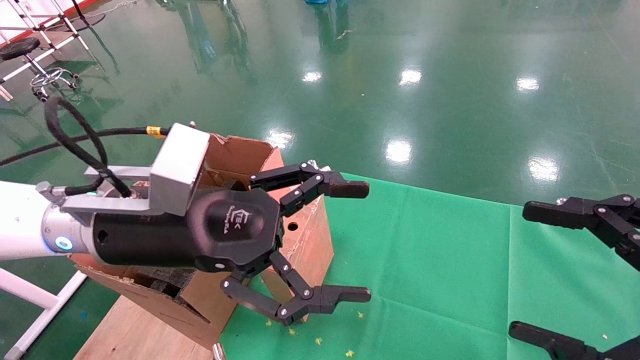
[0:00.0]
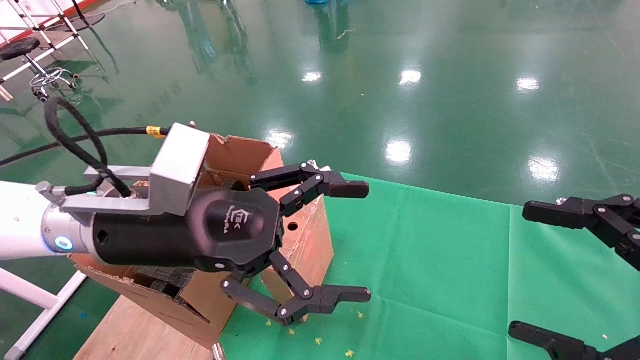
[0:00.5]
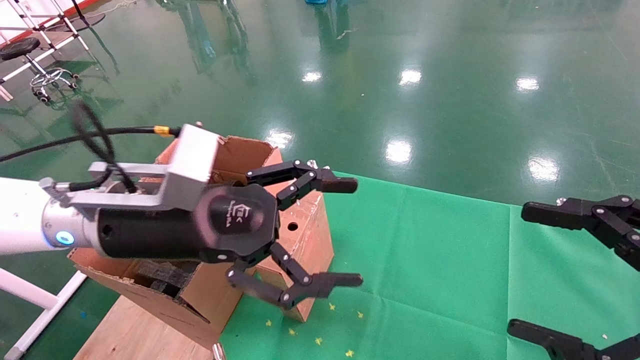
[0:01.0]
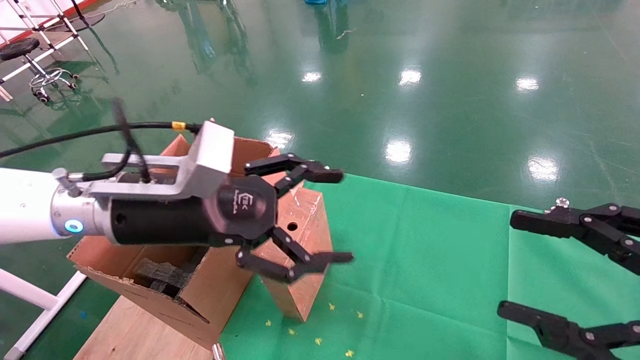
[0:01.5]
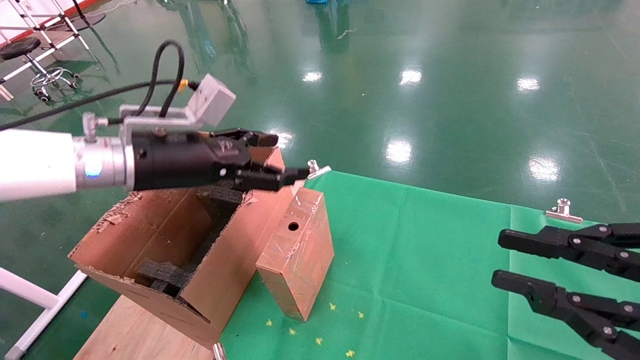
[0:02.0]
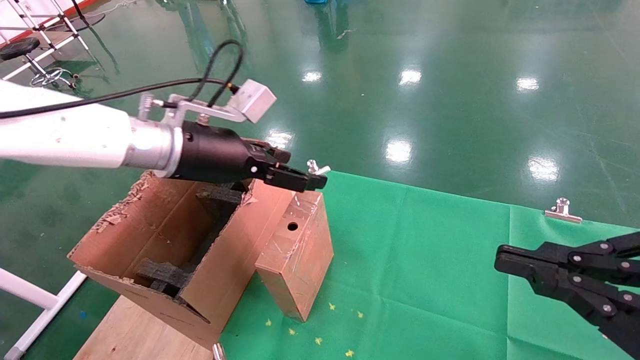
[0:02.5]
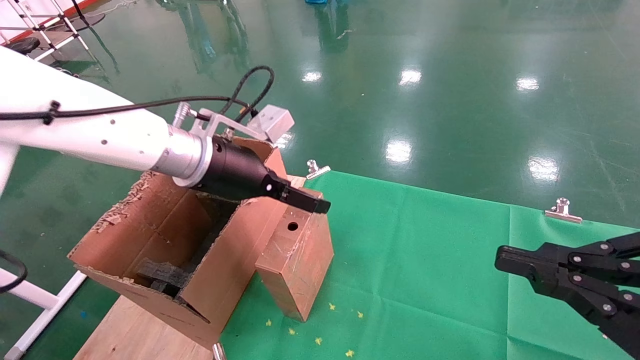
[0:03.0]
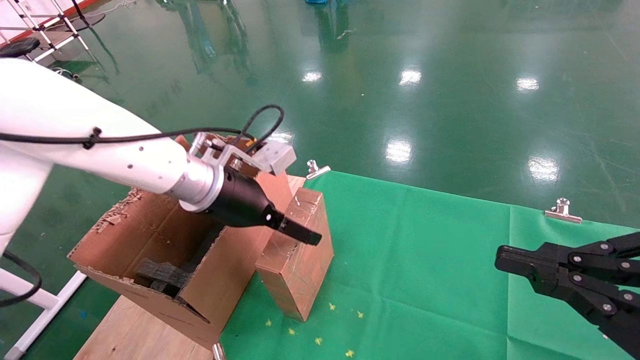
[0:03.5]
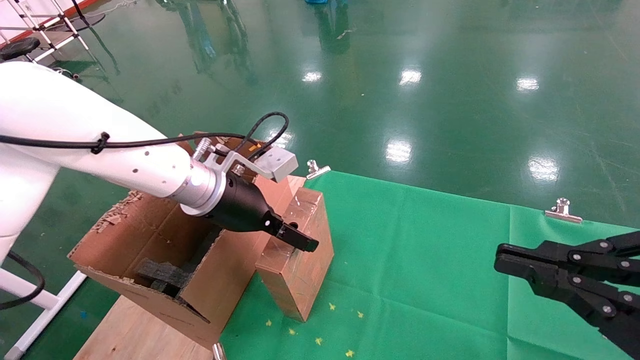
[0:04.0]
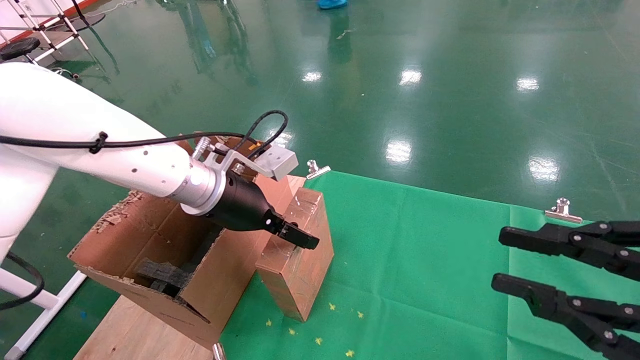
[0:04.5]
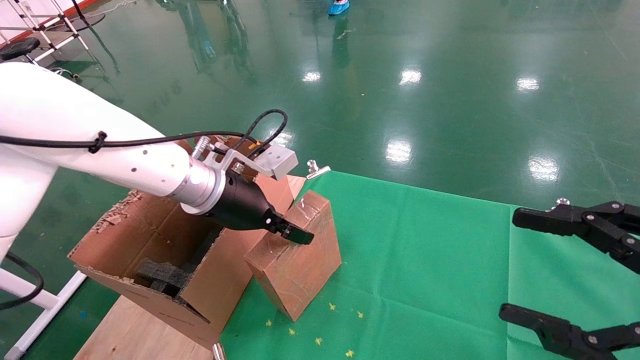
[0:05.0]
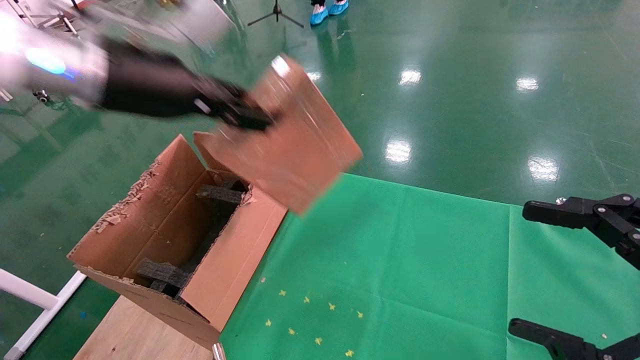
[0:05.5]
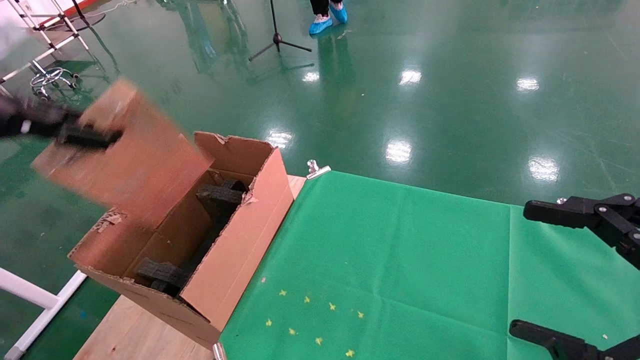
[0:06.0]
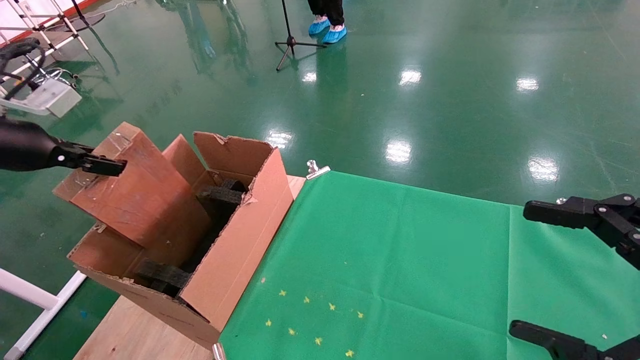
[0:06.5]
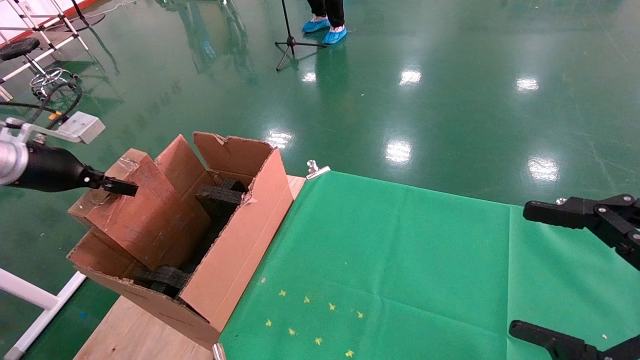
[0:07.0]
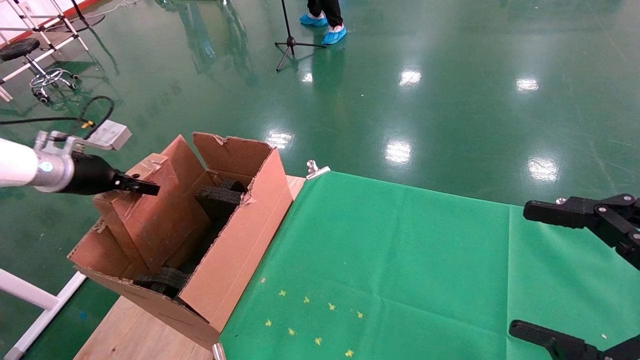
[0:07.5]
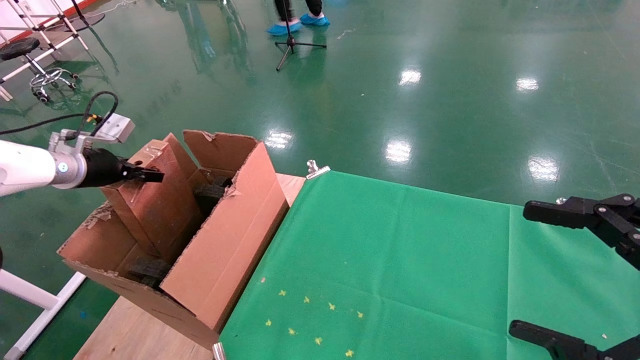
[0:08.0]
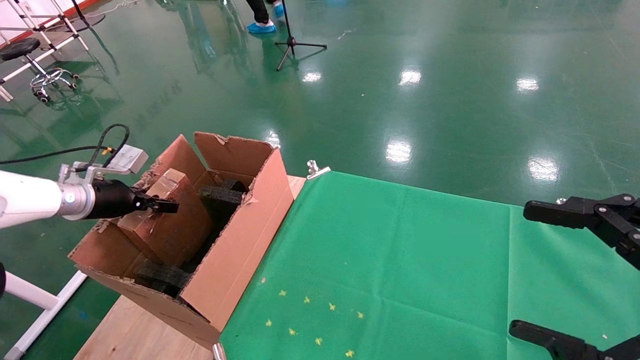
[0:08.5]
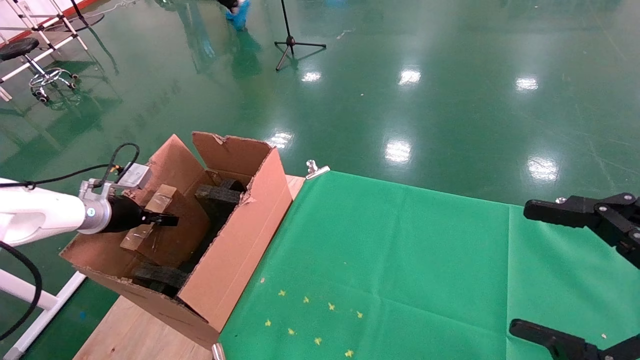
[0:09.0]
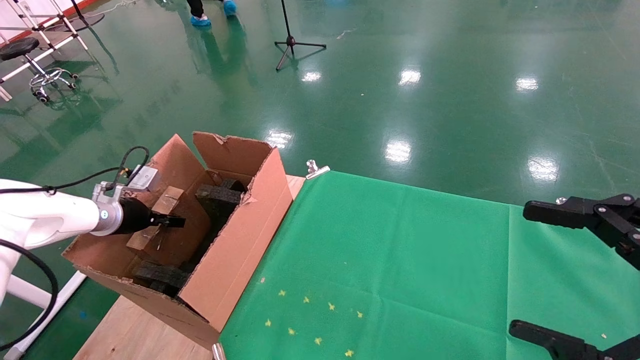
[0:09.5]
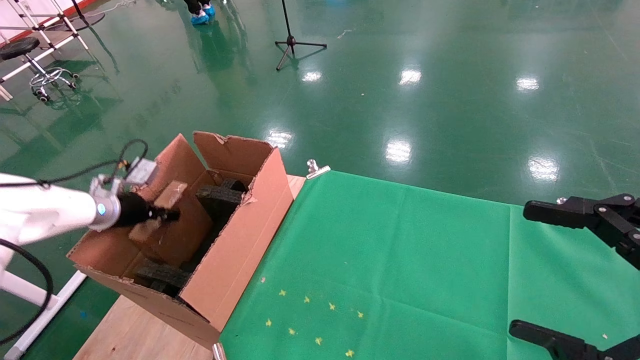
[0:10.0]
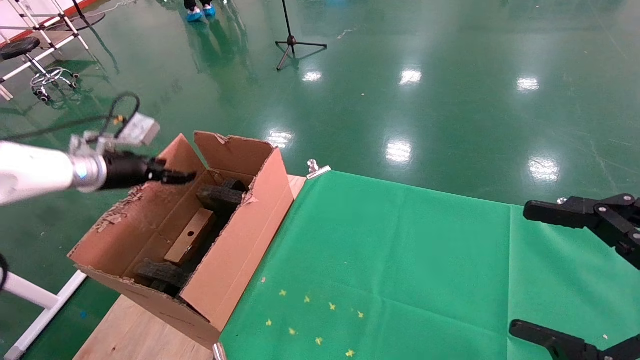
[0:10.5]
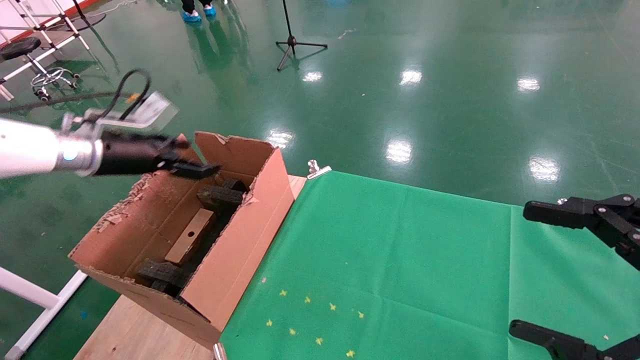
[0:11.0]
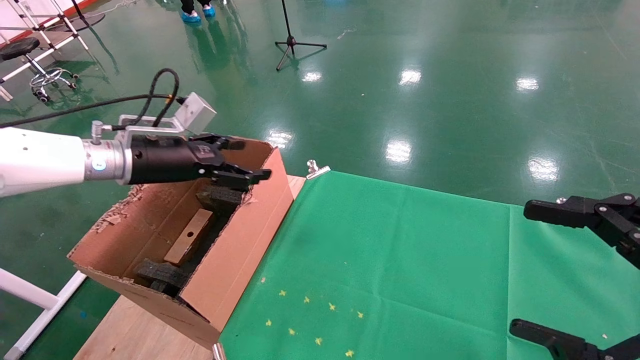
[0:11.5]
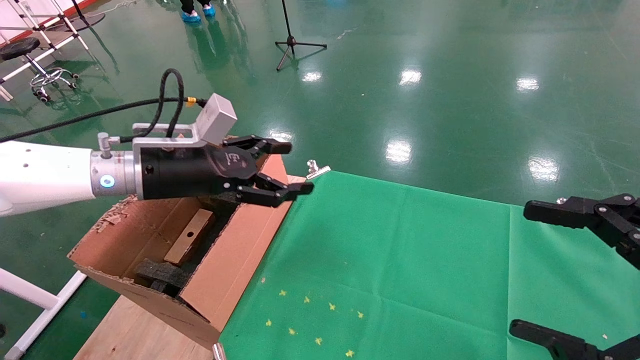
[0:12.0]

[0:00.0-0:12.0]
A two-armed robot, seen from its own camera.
Task of the whole recording: using a robotic arm to pick up a cardboard box and palace it the carton.
Step, 0:01.5 to 0:05.0: Pick up the mouse and the power cord paper box.
Step, 0:05.5 to 0:10.5: Place the mouse and the power cord paper box into the container.
0:00.0 to 0:02.0: The left gripper is displaced forward and to the left by some 10 cm; the right gripper closes its fingers.
0:02.0 to 0:04.0: The left gripper is displaced to the right by about 5 cm.
0:04.0 to 0:06.0: The left gripper shifts some 30 cm to the left, upward and backward, and closes up. The right gripper opens.
0:06.0 to 0:08.0: The left gripper moves forward, downward and to the left, about 25 cm.
0:08.0 to 0:10.0: The left gripper moves downward, approximately 10 cm.
0:10.0 to 0:12.0: The left gripper moves to the right and upward, some 25 cm, and opens up.

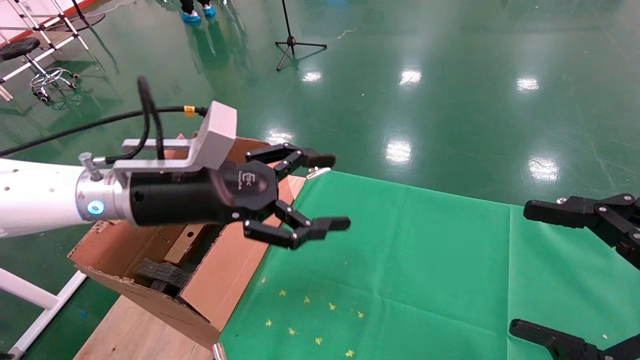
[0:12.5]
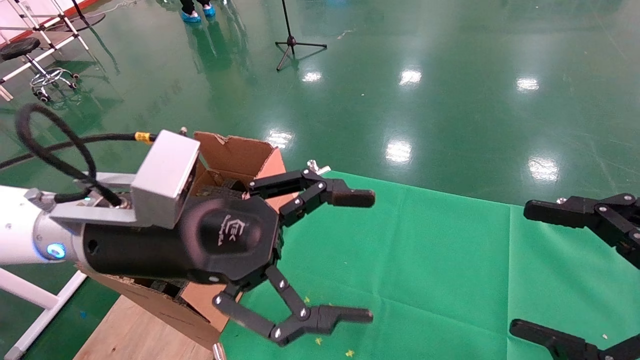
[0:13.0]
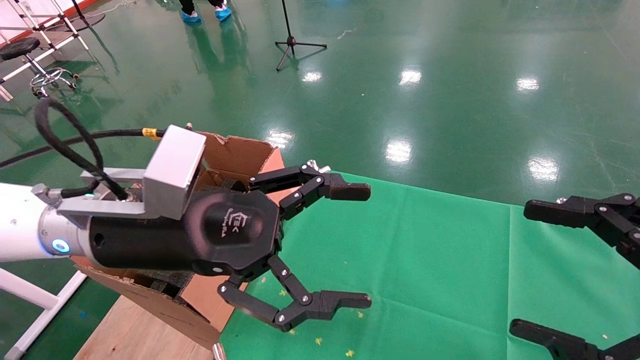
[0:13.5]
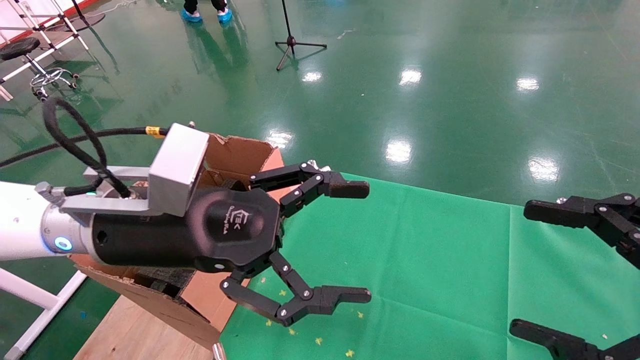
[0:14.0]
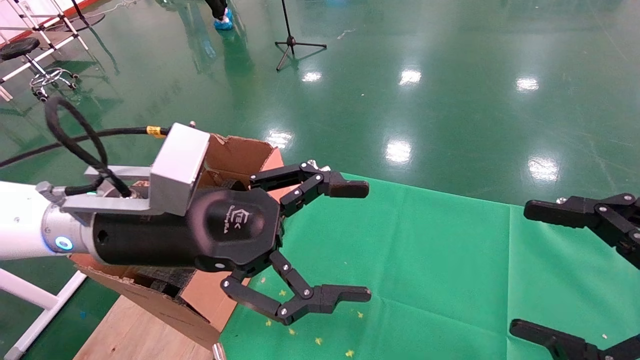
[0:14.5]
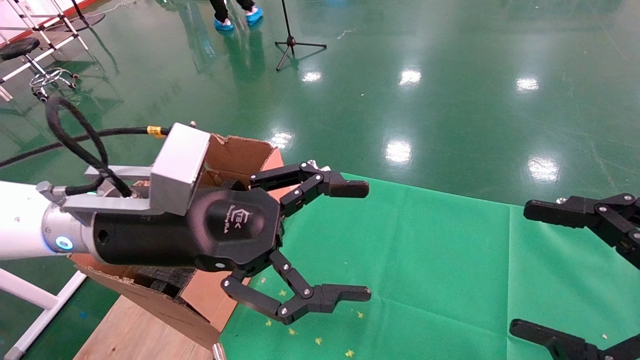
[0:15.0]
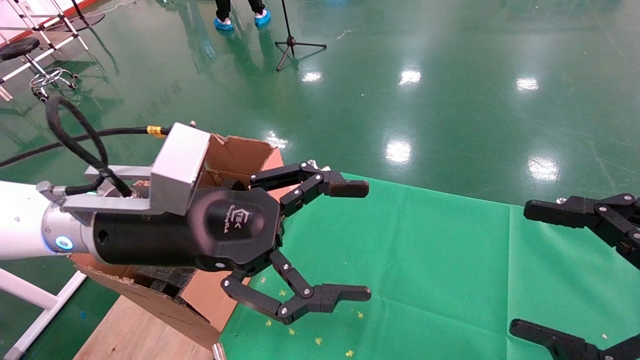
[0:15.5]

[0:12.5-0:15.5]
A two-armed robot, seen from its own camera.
Task of the whole recording: using a robotic arm to pick up a cardboard box and palace it the carton.
0:12.5 to 0:14.0: The left gripper shifts roughly 5 cm backward.
0:14.0 to 0:15.5: The two grippers keep their place.
